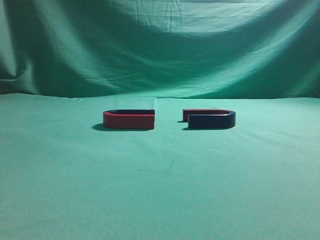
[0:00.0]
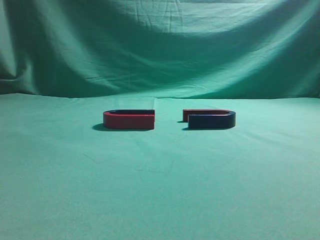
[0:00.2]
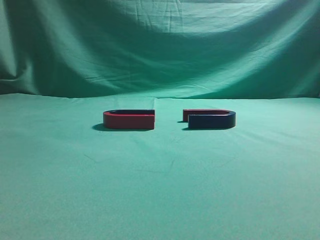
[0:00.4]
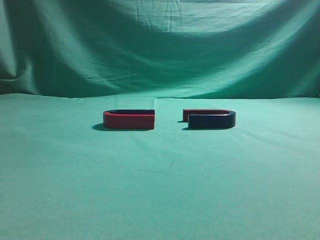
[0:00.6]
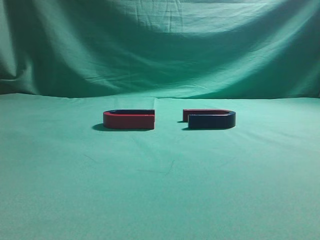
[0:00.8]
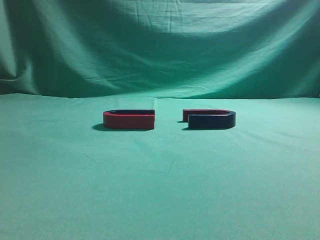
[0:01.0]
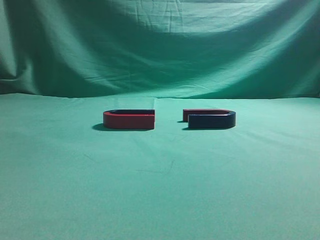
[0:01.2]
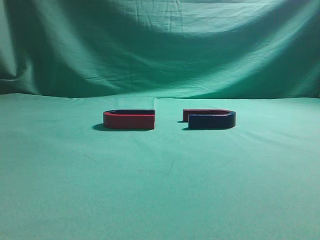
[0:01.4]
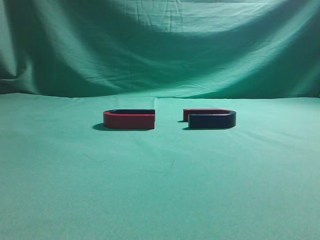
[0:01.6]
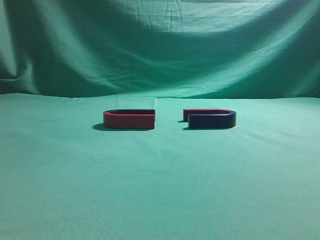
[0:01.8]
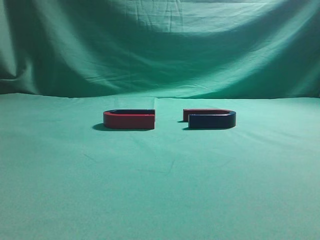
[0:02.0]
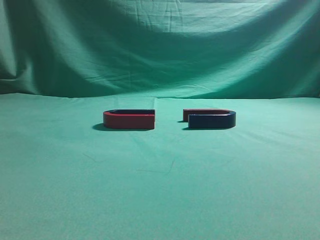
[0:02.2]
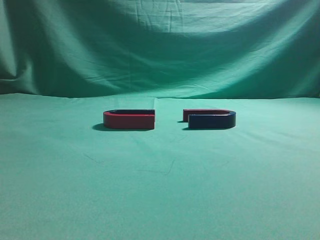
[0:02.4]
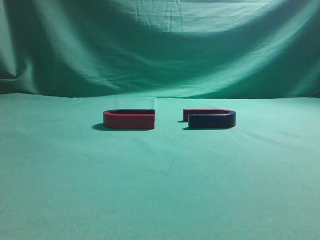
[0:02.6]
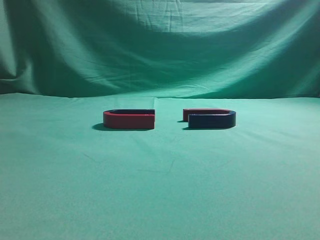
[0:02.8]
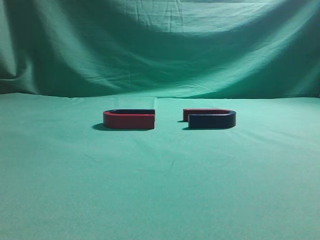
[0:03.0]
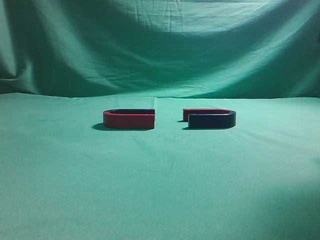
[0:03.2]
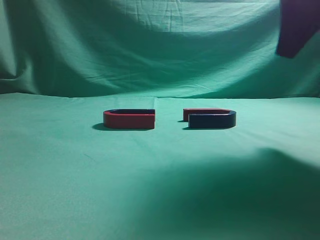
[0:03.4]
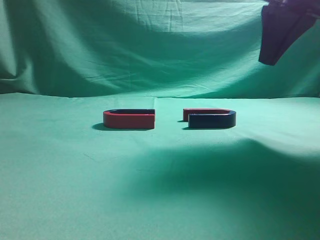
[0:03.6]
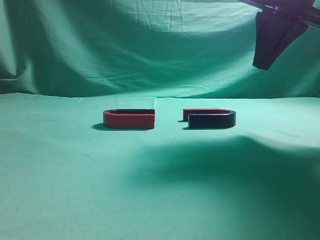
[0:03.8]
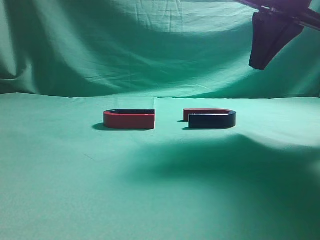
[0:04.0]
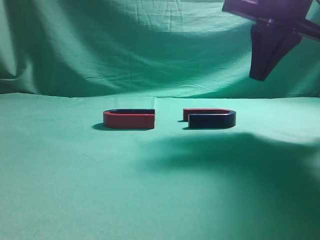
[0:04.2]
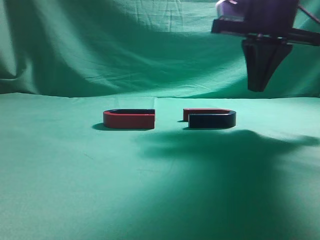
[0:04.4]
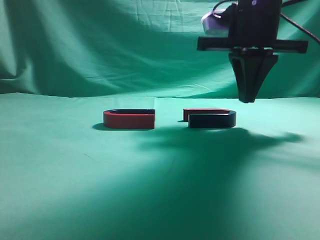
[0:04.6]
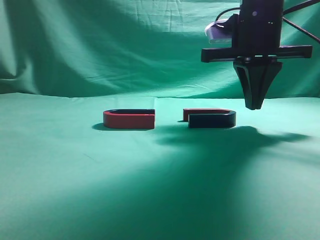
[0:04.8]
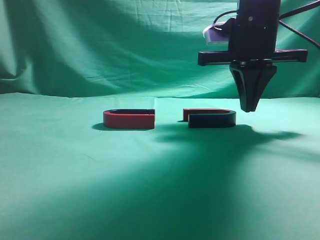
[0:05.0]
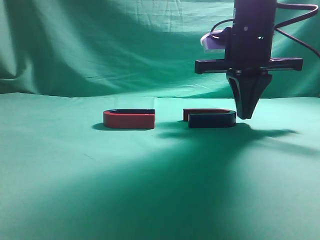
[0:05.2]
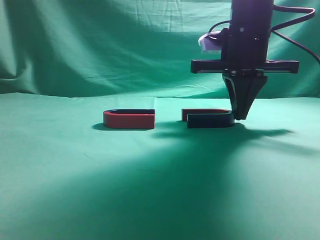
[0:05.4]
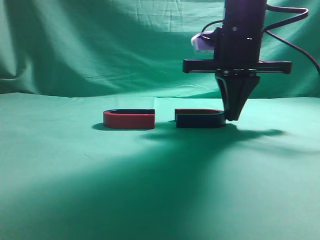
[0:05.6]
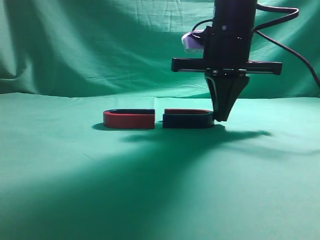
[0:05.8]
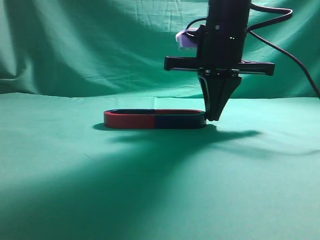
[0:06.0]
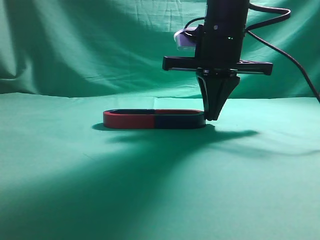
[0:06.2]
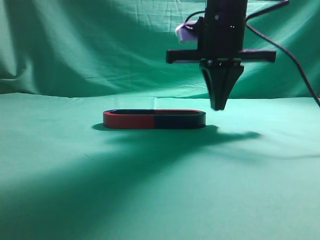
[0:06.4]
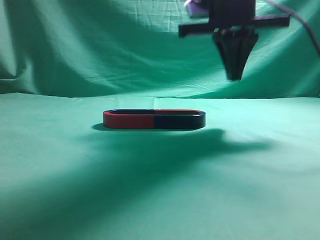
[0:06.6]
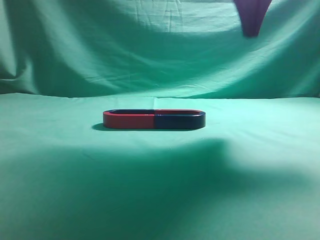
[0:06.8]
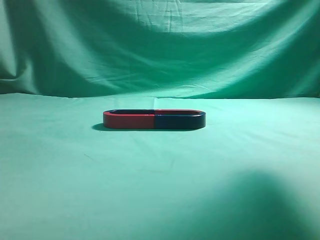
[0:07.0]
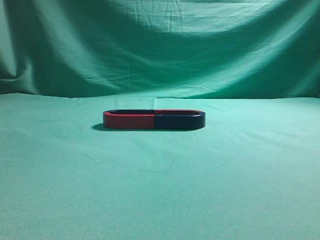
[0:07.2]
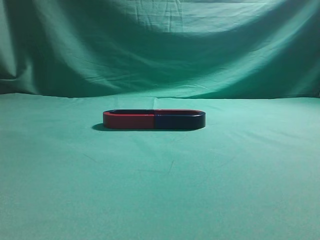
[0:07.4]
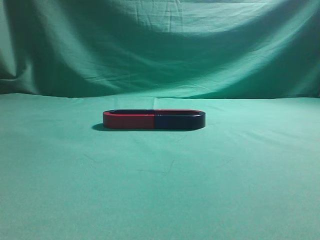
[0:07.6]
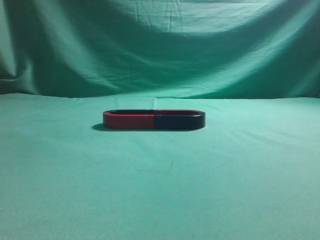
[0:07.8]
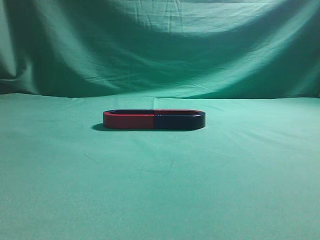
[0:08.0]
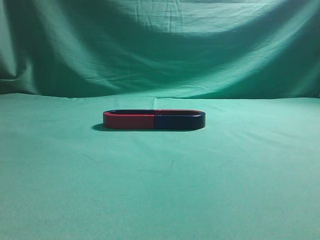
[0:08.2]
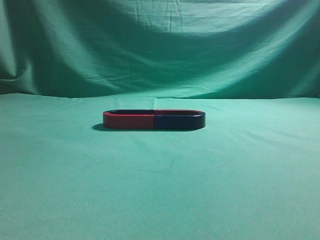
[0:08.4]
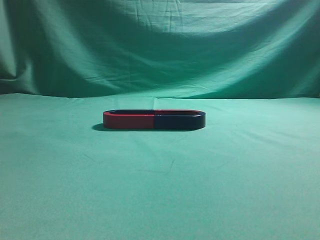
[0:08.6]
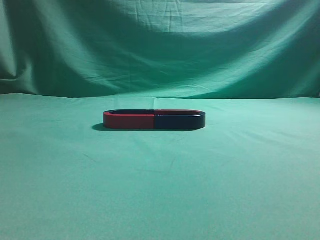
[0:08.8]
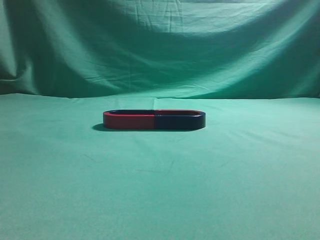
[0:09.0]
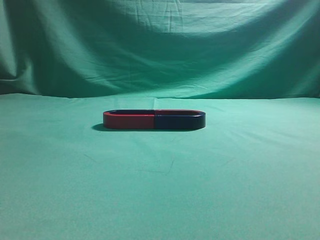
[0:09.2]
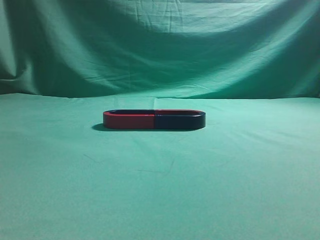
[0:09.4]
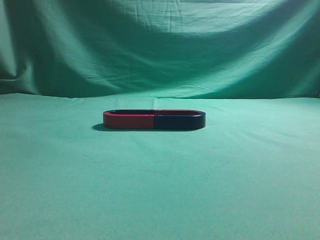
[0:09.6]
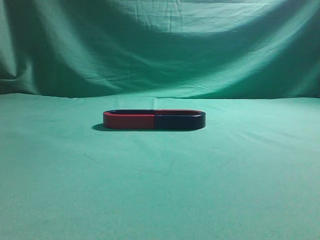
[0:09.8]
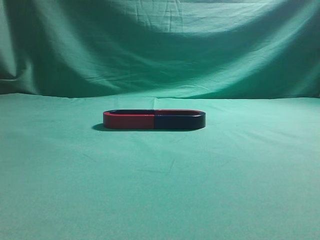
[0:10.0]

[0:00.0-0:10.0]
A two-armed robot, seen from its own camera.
Task of the whole recording: push the magnet on the table from its original position to another position.
Step, 0:00.0 to 0:06.2: Push the magnet on the right to connect the magnet on the left.
0:02.8 to 0:04.2: The right gripper travels forward and to the left by approximately 20 cm.
0:04.2 to 0:05.8: The right gripper travels to the left and downward by approximately 10 cm.
0:05.8 to 0:07.2: The right gripper travels upward, backward and to the right by approximately 25 cm.

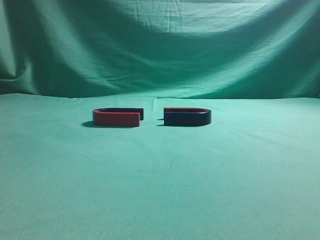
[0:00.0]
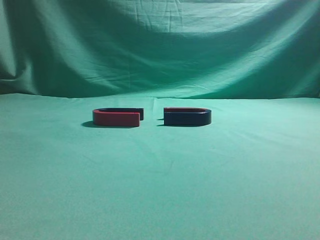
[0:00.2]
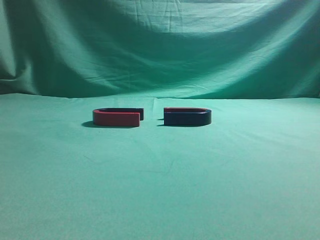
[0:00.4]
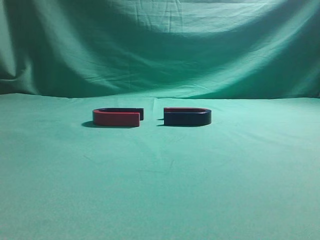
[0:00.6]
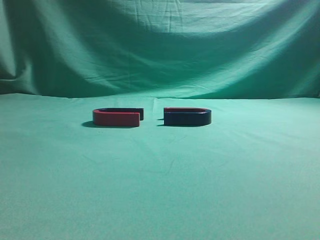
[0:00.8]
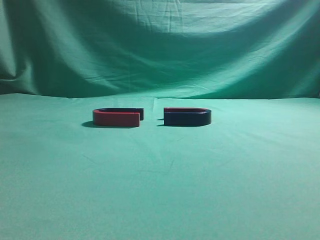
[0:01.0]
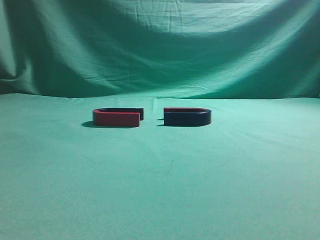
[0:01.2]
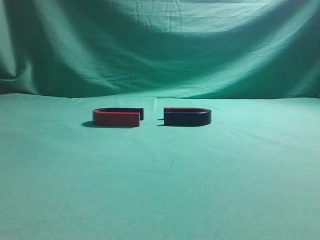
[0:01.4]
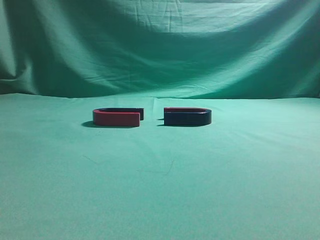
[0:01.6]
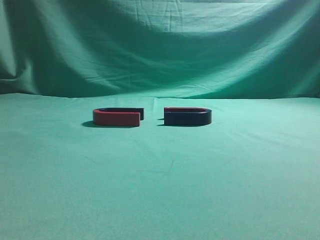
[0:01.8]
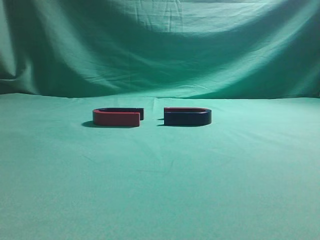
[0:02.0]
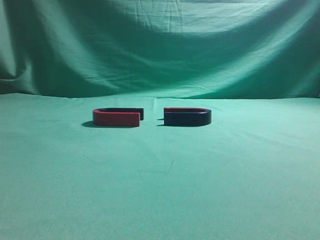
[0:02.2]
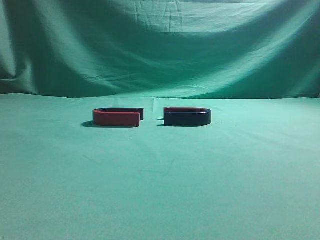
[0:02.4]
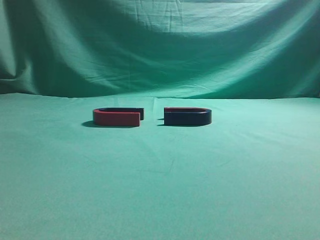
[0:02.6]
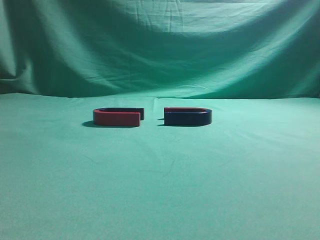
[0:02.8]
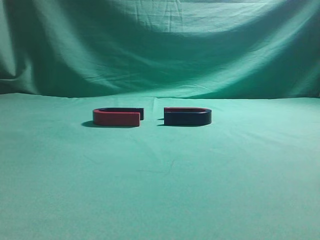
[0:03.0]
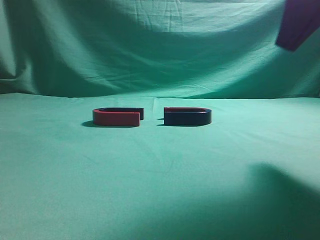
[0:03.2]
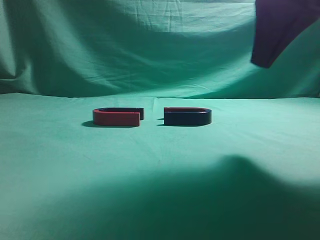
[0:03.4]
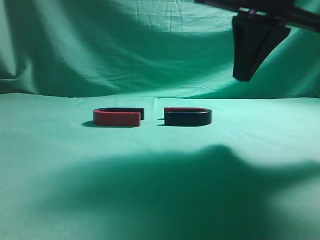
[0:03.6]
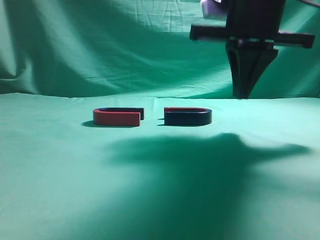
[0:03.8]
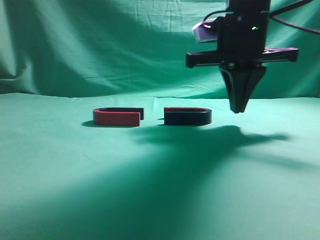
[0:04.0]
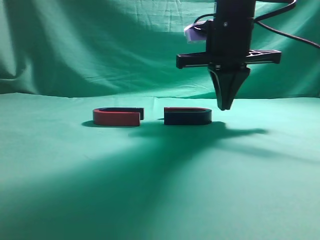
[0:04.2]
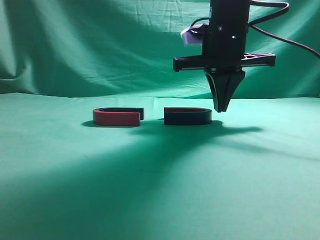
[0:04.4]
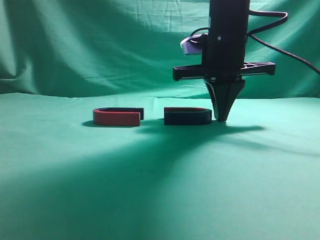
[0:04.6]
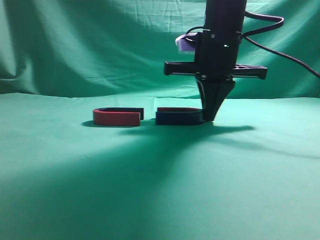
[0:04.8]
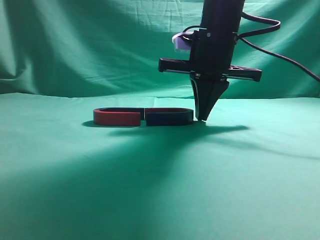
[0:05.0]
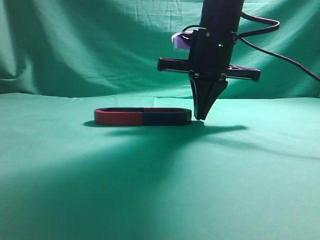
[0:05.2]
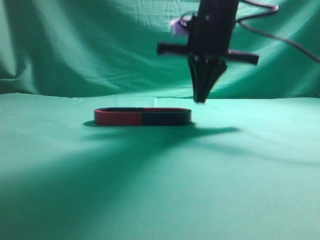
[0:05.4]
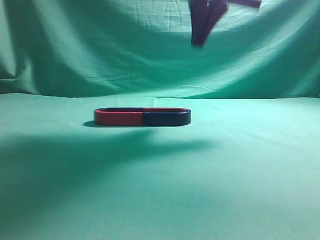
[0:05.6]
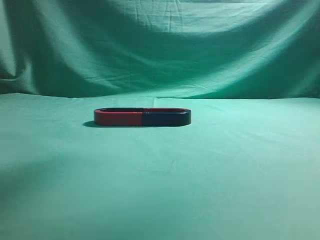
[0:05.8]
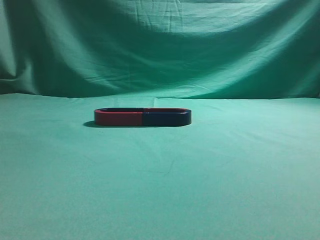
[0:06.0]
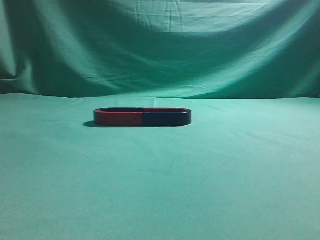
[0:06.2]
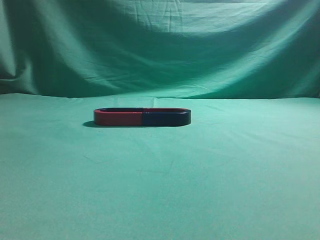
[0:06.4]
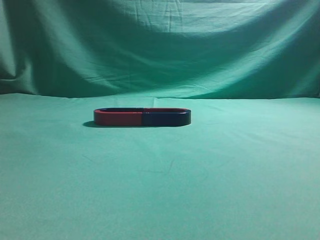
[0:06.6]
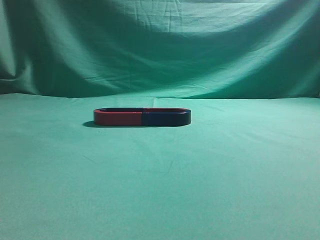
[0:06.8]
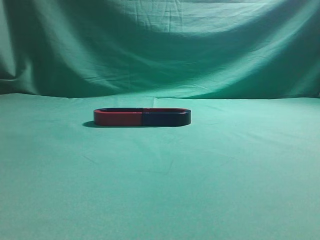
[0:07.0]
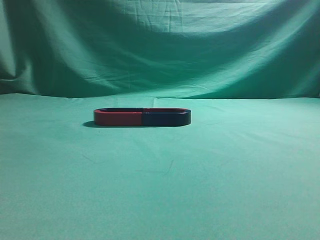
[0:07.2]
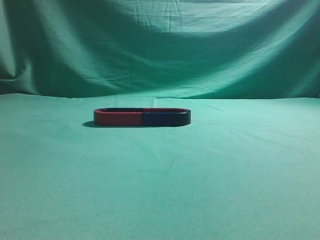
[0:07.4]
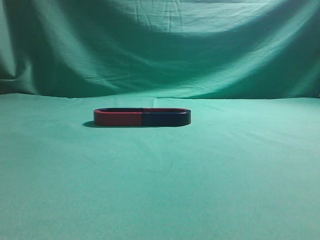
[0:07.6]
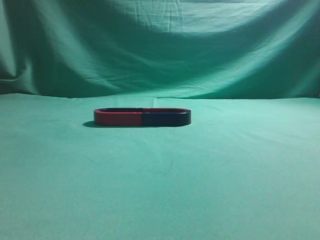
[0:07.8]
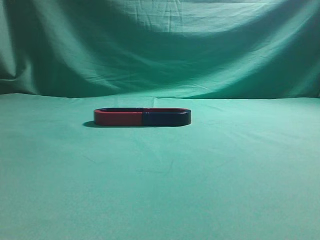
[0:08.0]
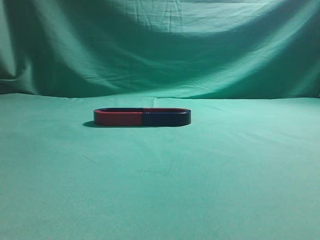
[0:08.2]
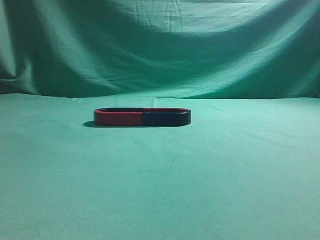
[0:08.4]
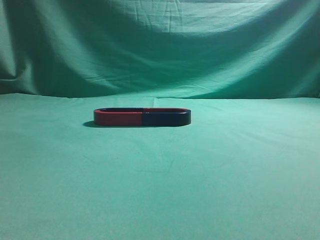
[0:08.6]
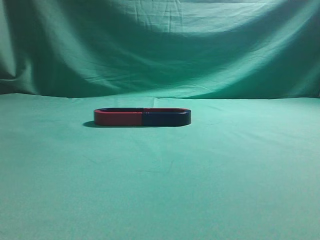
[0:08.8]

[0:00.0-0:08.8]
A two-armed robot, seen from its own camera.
Task of the whole recording: push the magnet on the table from its original position to another position.
Step, 0:00.0 to 0:05.0: Push the magnet on the right to connect the magnet on the left.
0:03.0 to 0:04.4: The right gripper heads forward, to the left and downward, covering approximately 20 cm.
0:04.4 to 0:05.8: The right gripper goes roughly 25 cm upward.
0:05.8 to 0:07.4: The right gripper shifts some 35 cm backward, to the right and downward.
